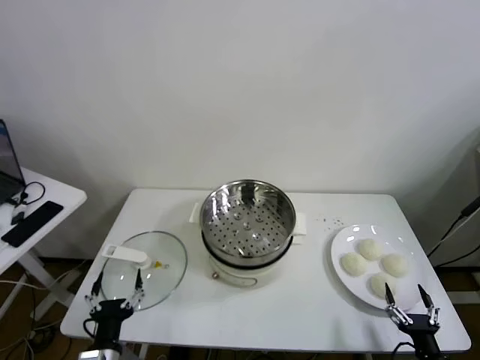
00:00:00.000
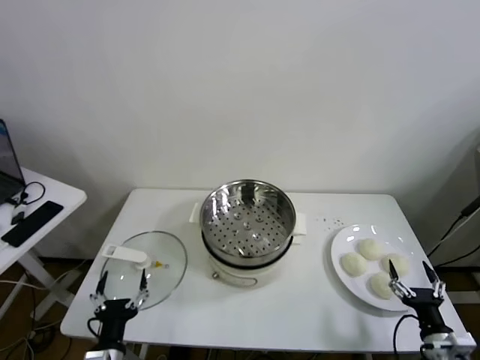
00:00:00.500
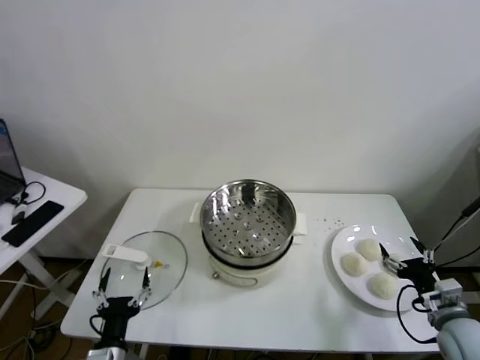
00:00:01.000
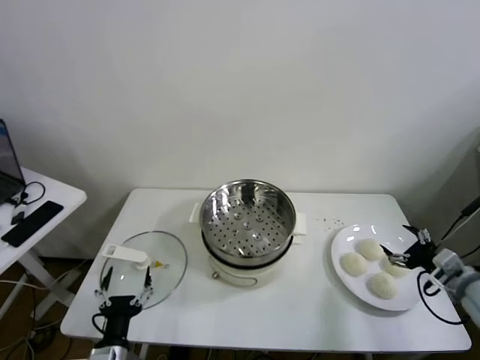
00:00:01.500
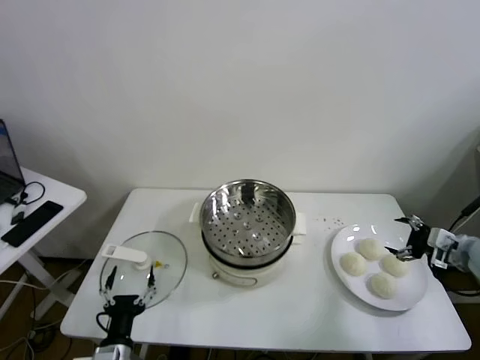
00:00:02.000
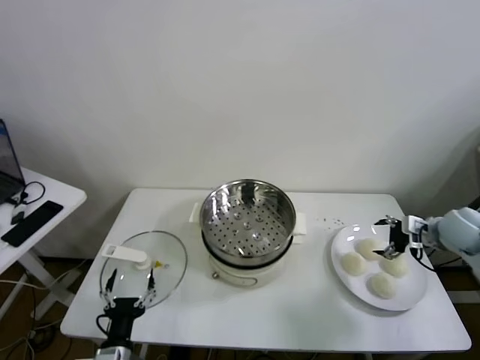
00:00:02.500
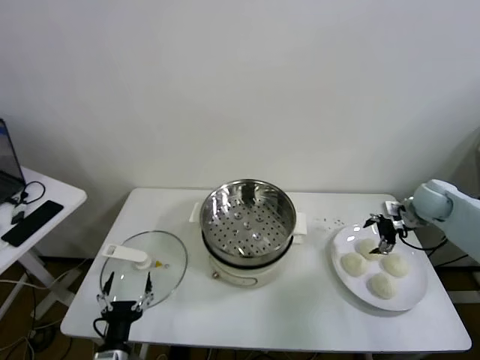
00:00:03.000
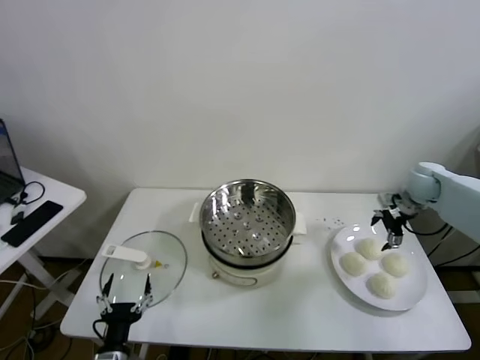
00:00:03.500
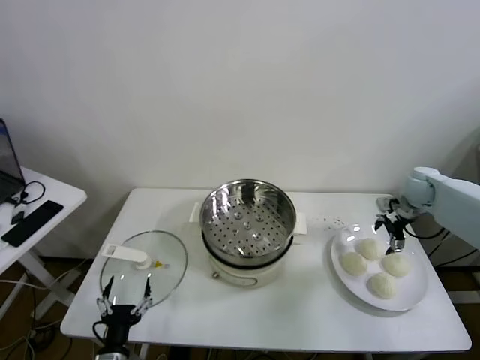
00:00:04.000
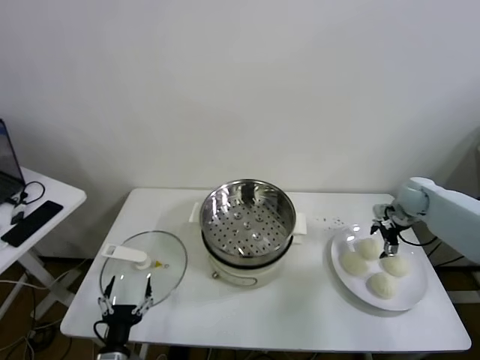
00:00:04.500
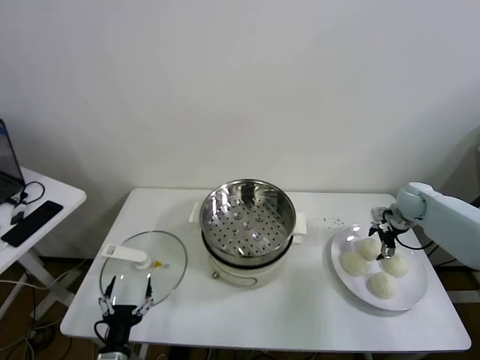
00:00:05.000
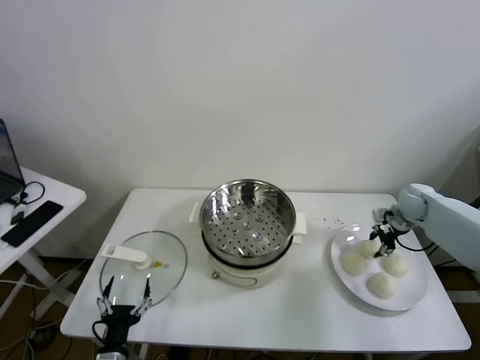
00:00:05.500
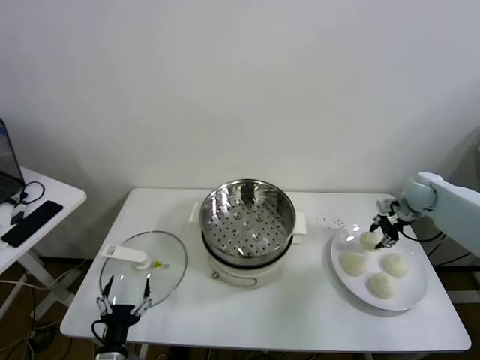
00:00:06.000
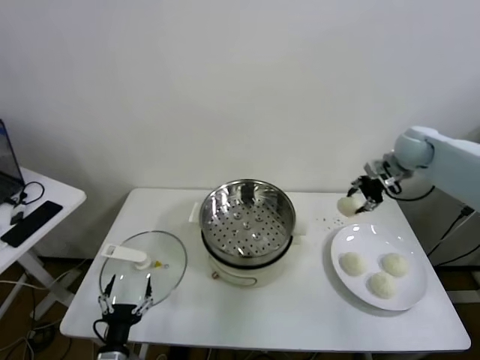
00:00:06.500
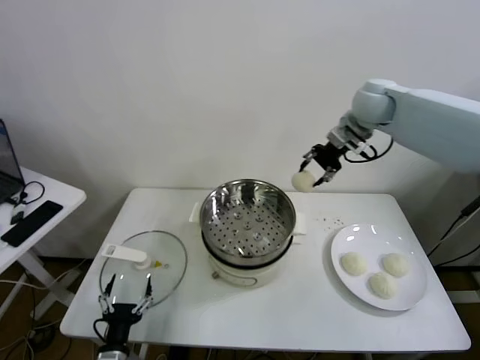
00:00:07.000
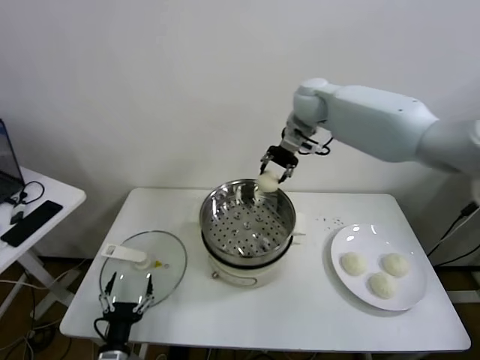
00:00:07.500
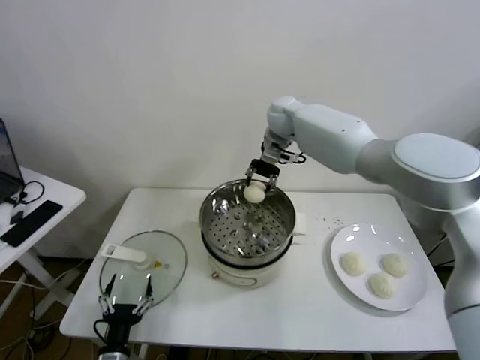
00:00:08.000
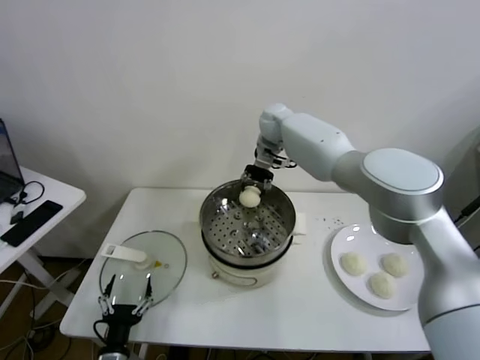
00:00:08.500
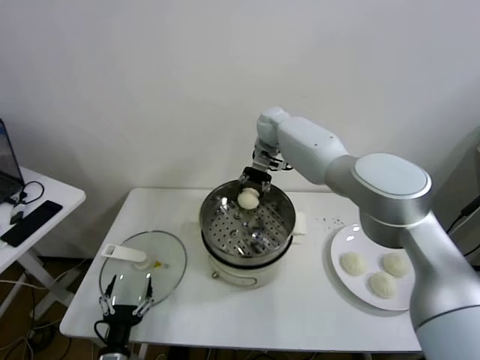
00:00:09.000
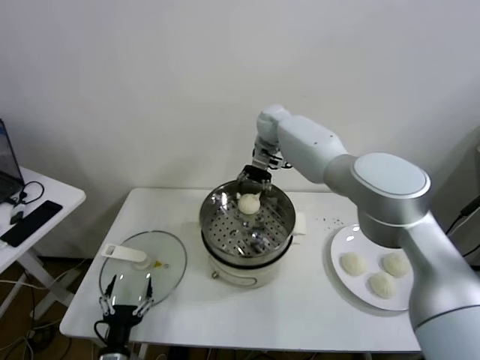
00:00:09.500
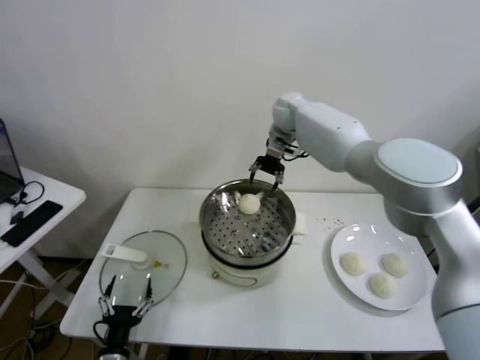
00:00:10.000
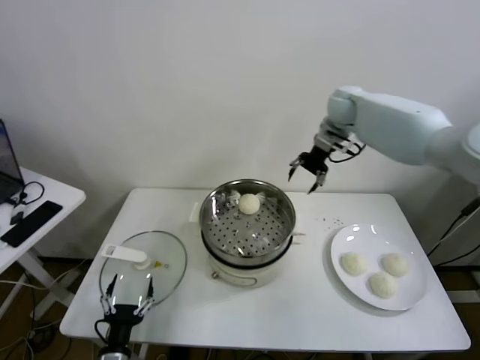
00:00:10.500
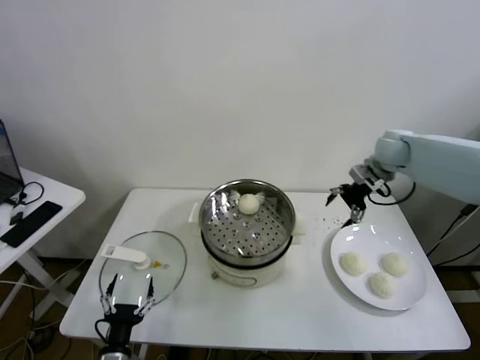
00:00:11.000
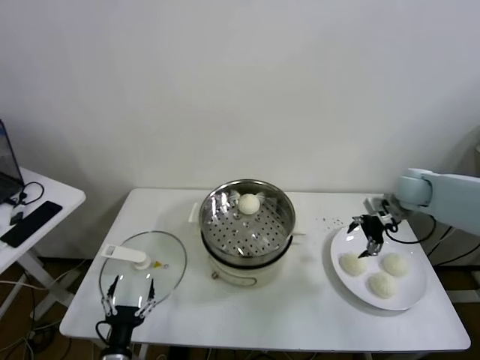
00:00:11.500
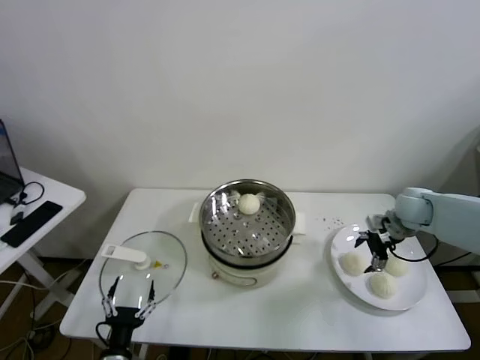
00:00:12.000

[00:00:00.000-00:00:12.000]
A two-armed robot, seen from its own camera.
Task of the whole recording: take steamed baozi put them in steamer.
Step, 00:00:00.000 to 00:00:05.500: Grasp the baozi in the plate with right gripper.
Step, 00:00:06.000 to 00:00:09.500: Place the baozi on the steamer with right gripper.
00:00:02.000 to 00:00:04.000: The right gripper shifts some 20 cm forward.
00:00:04.000 to 00:00:06.000: The right gripper closes up.
00:00:06.000 to 00:00:08.000: The right gripper shifts some 35 cm to the left.
00:00:08.000 to 00:00:10.000: The right gripper opens its fingers.
00:00:10.000 to 00:00:12.000: The right gripper goes roughly 40 cm to the right, backward and downward, and opens its fingers.

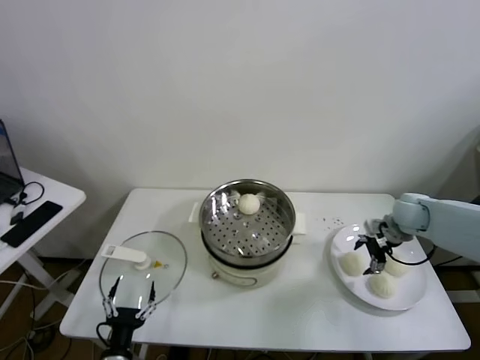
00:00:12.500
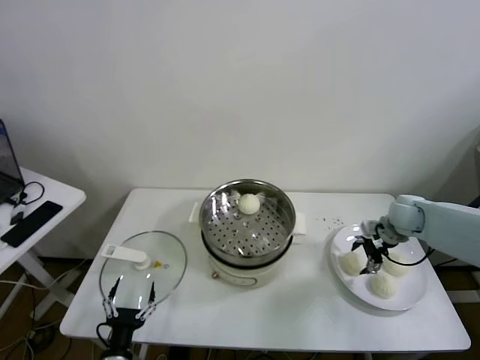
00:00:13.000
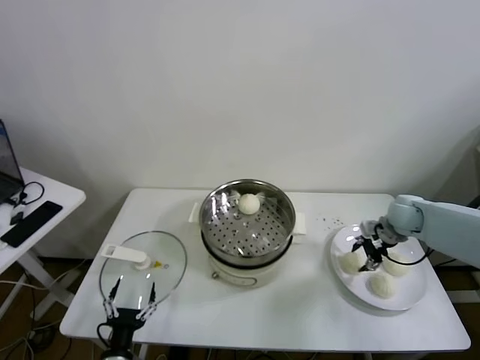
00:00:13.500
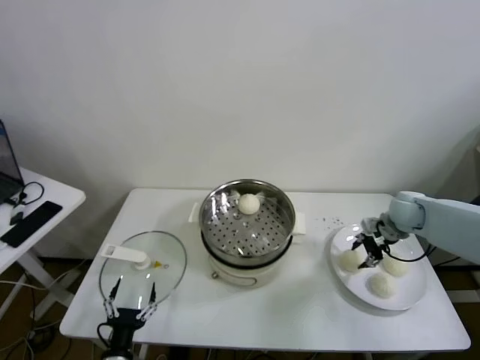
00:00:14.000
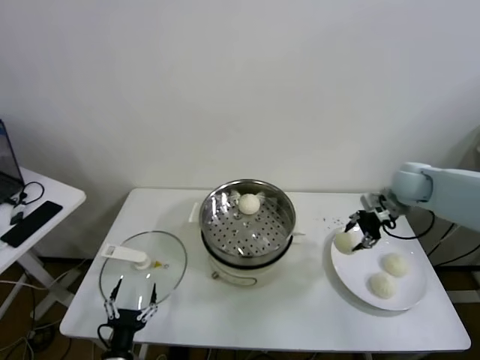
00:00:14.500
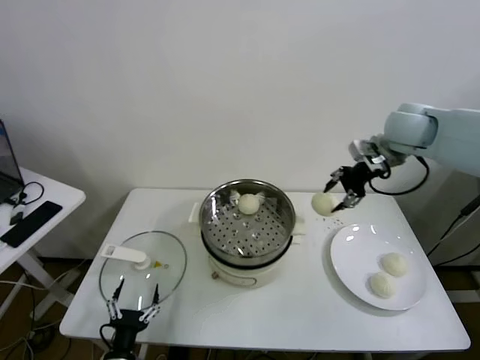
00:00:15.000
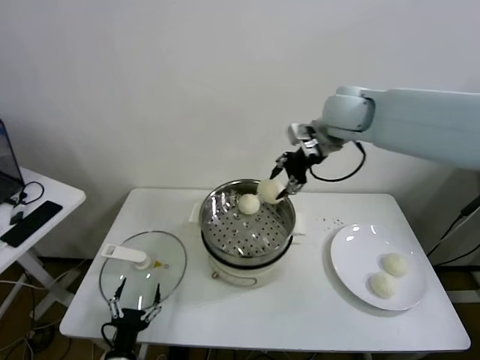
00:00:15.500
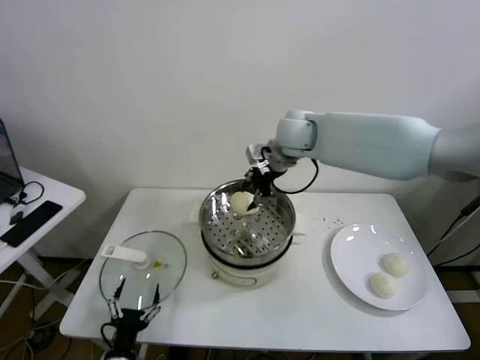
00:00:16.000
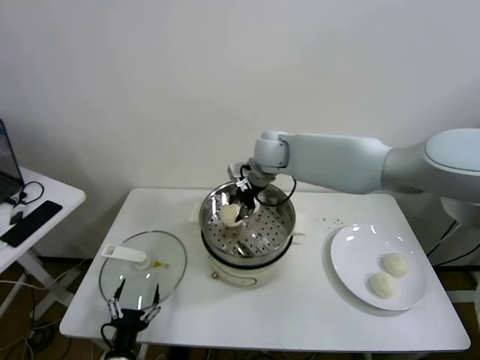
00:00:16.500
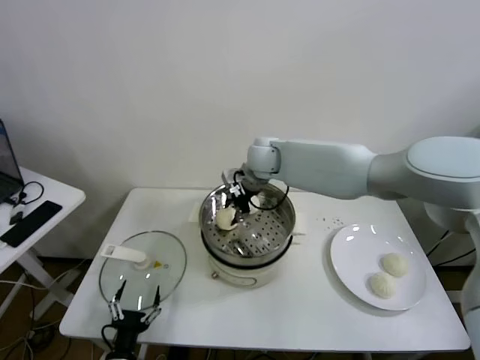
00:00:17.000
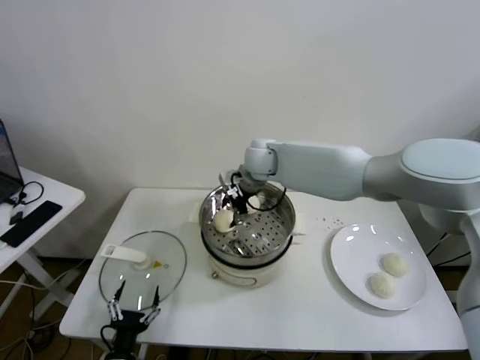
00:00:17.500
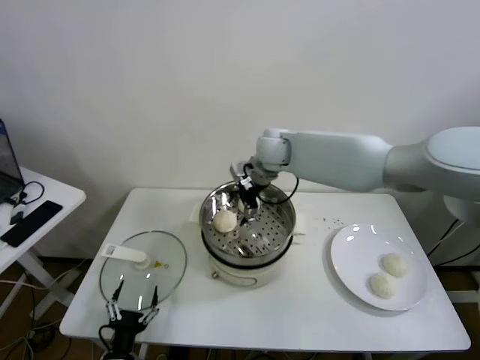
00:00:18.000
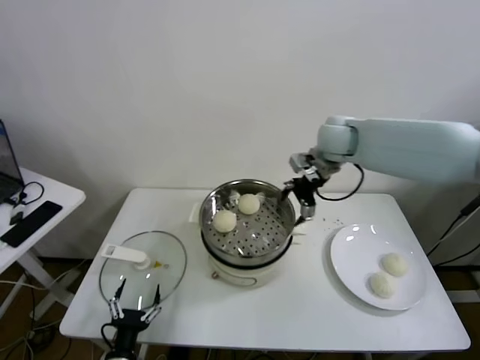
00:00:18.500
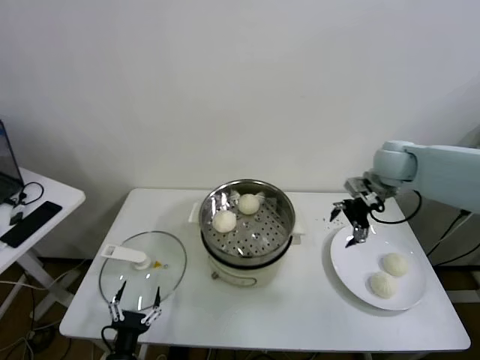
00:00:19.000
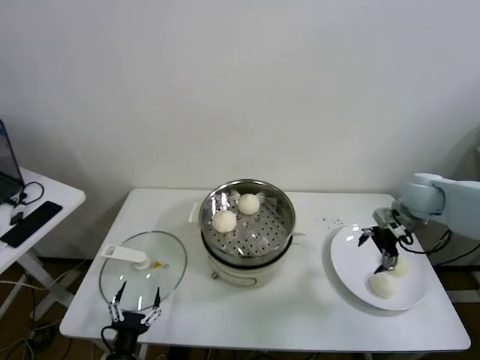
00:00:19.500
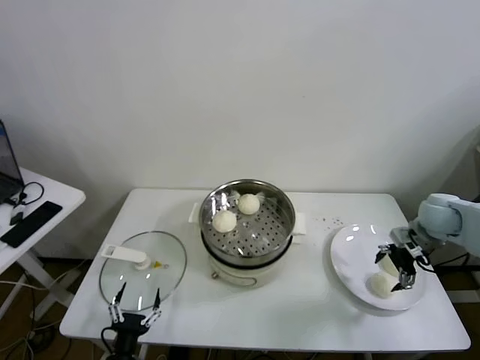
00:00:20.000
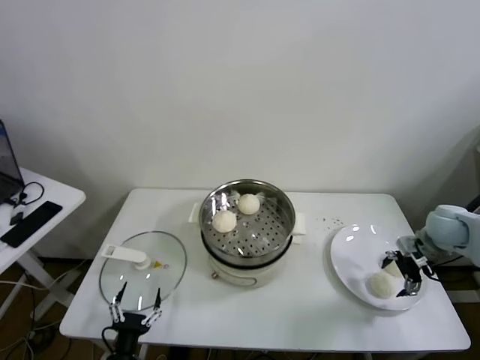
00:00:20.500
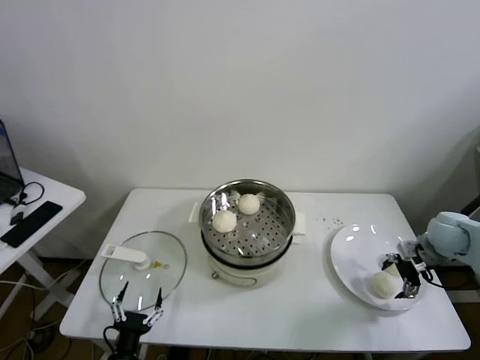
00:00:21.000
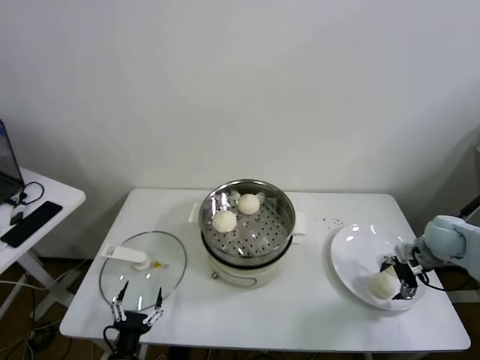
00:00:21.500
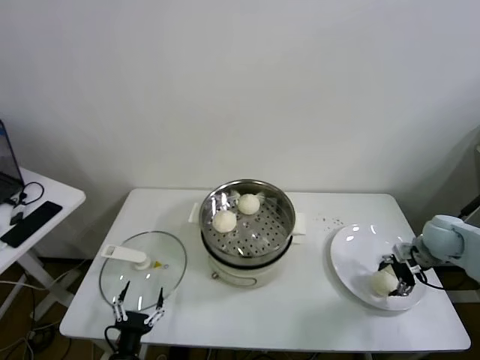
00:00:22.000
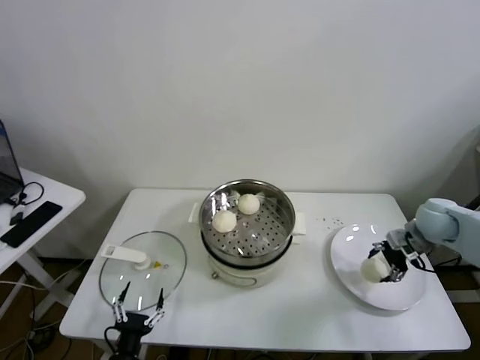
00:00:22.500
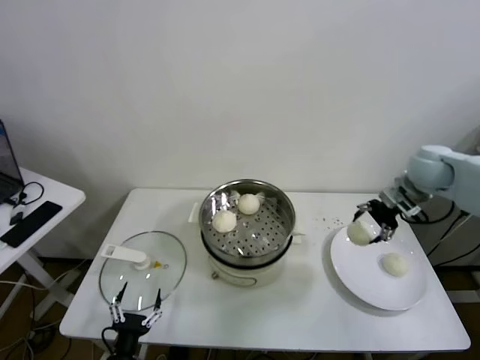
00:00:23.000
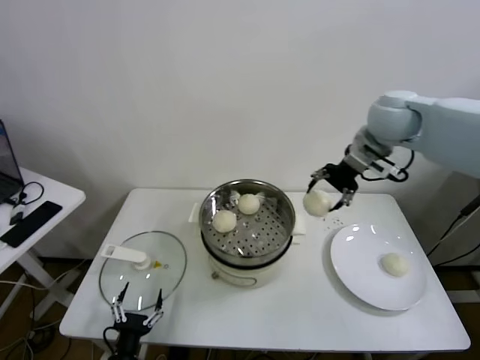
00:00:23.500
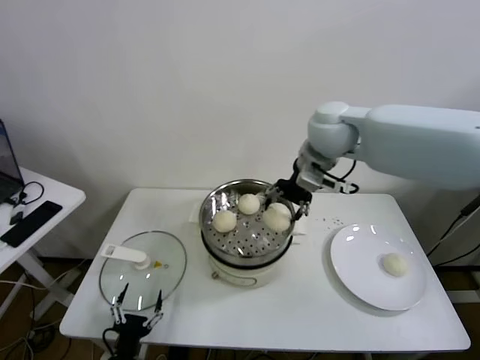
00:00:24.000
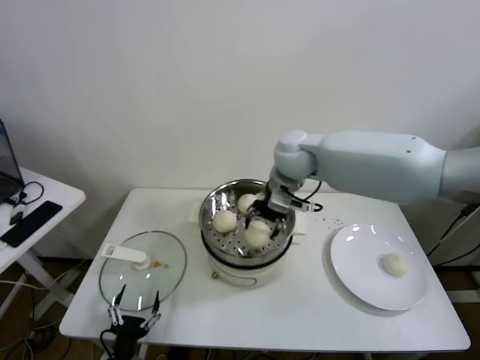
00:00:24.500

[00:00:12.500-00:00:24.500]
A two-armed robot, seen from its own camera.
Task of the whole recording: take steamed baozi put them in steamer.
Step, 00:00:14.000 to 00:00:17.500: Place the baozi on the steamer with right gripper.
Step, 00:00:18.000 to 00:00:22.000: Grasp the baozi in the plate with right gripper.
00:00:12.500 to 00:00:14.500: The right gripper shifts some 10 cm upward, and closes its fingers.
00:00:14.500 to 00:00:16.500: The right gripper moves to the left, some 30 cm.
00:00:16.500 to 00:00:18.500: The right gripper goes roughly 15 cm to the right, and opens up.
00:00:18.500 to 00:00:20.500: The right gripper goes approximately 30 cm to the right, downward and backward.
00:00:20.500 to 00:00:22.500: The right gripper closes.
00:00:22.500 to 00:00:24.500: The right gripper goes approximately 35 cm to the left.

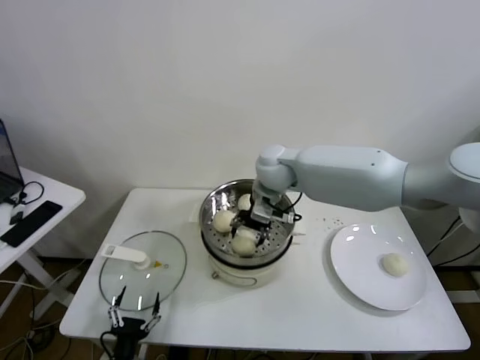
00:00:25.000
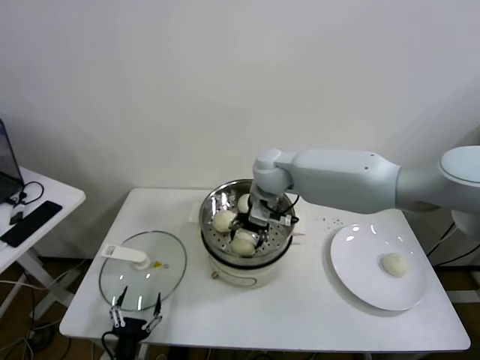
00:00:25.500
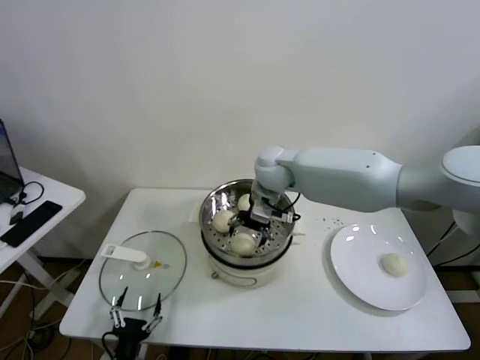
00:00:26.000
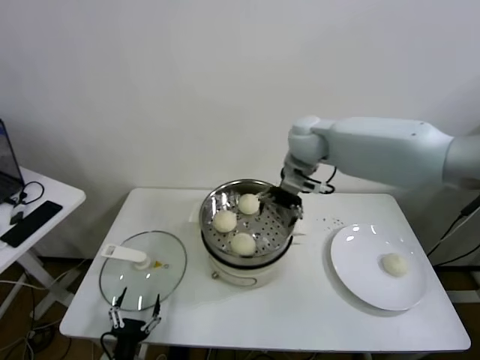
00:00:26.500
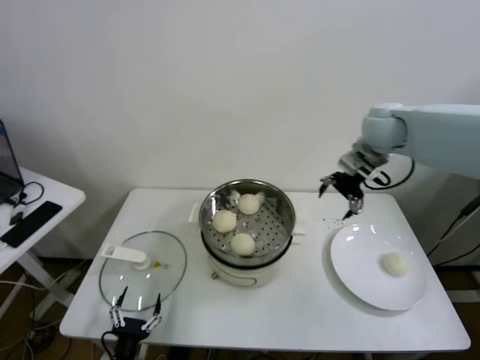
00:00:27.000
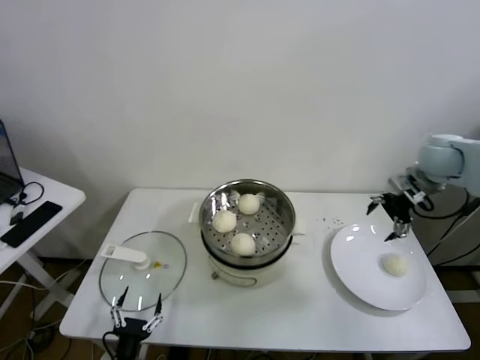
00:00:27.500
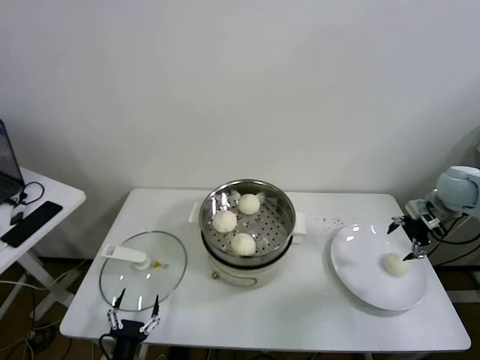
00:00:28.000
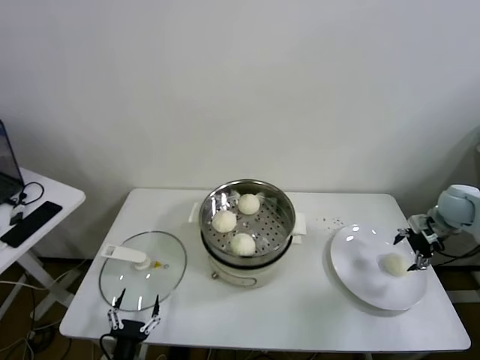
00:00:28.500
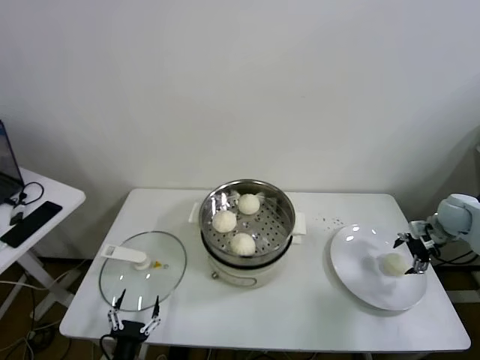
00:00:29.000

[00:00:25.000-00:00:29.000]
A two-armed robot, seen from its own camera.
Task of the whole recording: take steamed baozi put them in steamer.
00:00:25.000 to 00:00:27.000: The right gripper heads to the right and upward, covering some 25 cm, and opens its fingers.
00:00:27.000 to 00:00:29.000: The right gripper goes about 35 cm to the right and downward.
